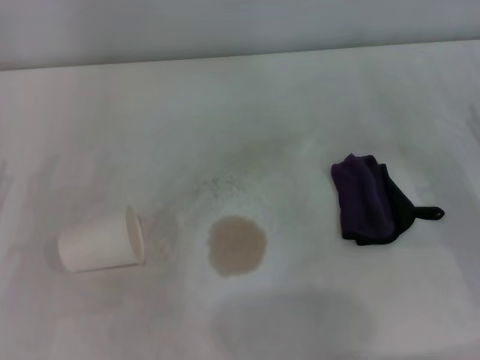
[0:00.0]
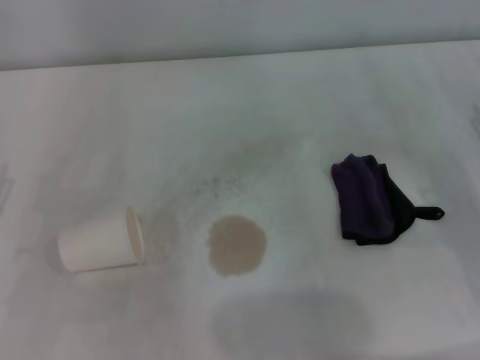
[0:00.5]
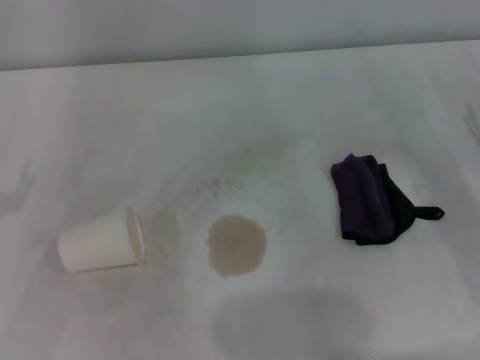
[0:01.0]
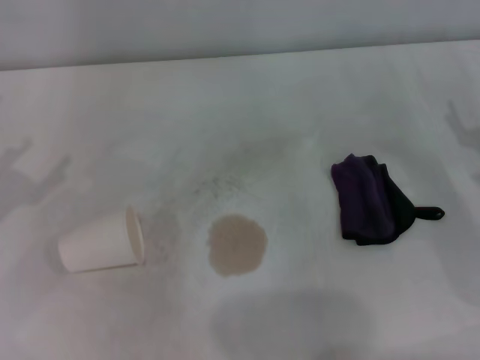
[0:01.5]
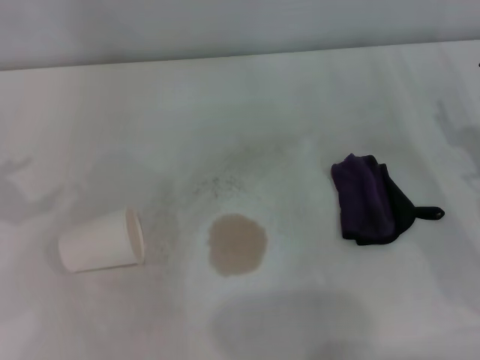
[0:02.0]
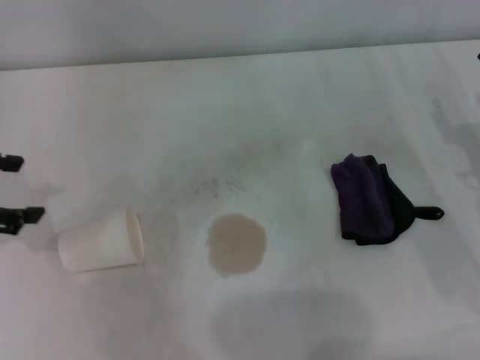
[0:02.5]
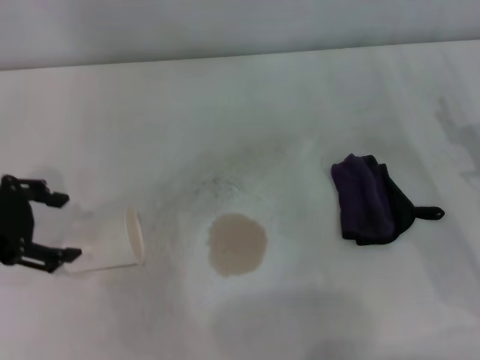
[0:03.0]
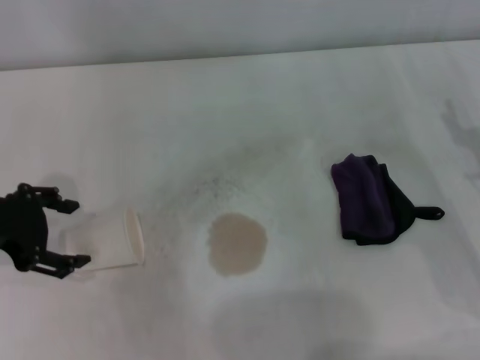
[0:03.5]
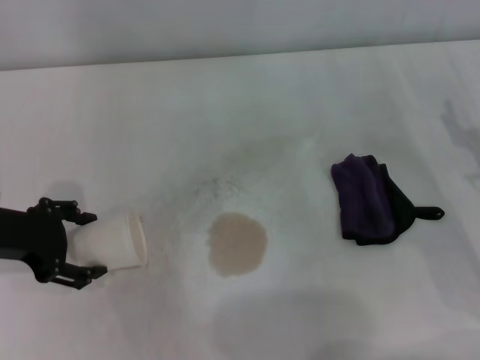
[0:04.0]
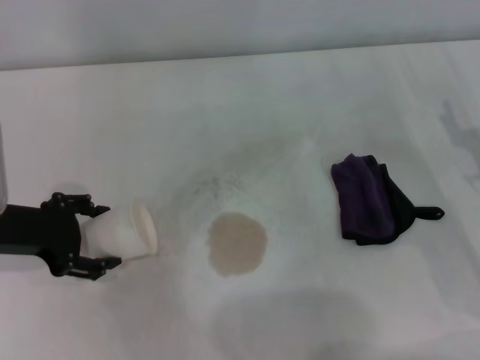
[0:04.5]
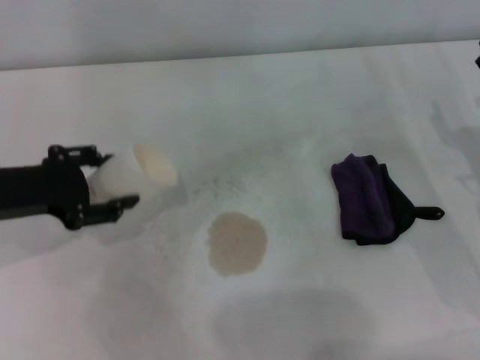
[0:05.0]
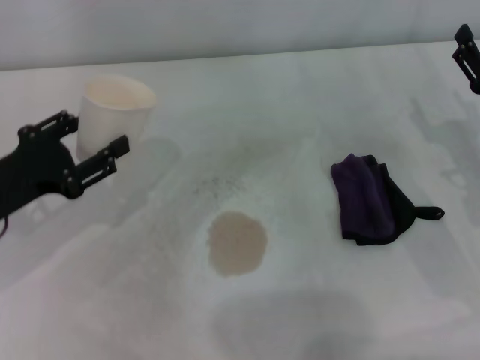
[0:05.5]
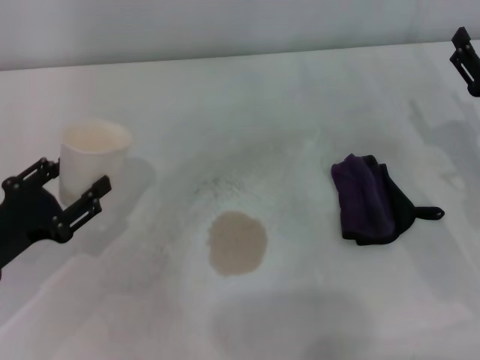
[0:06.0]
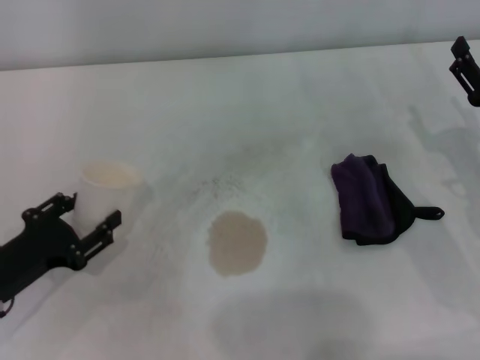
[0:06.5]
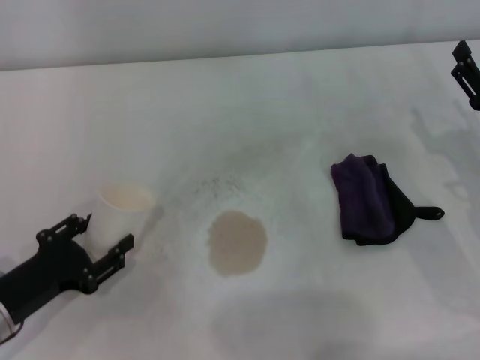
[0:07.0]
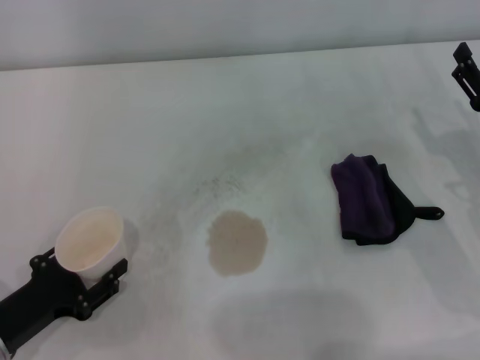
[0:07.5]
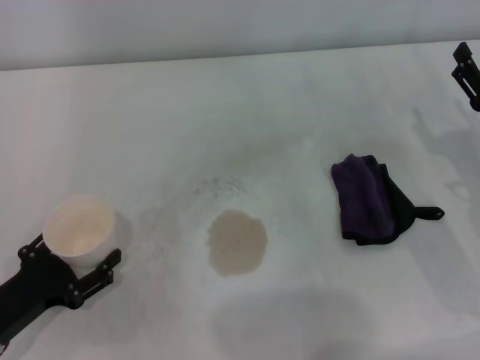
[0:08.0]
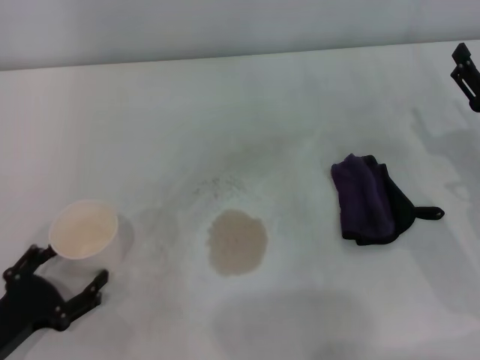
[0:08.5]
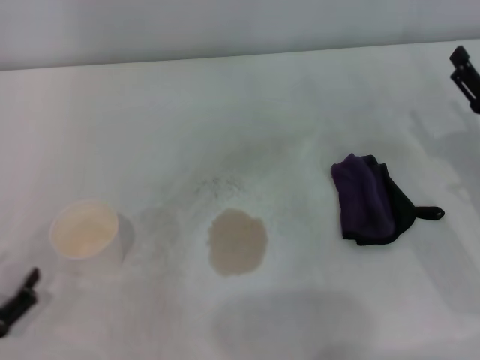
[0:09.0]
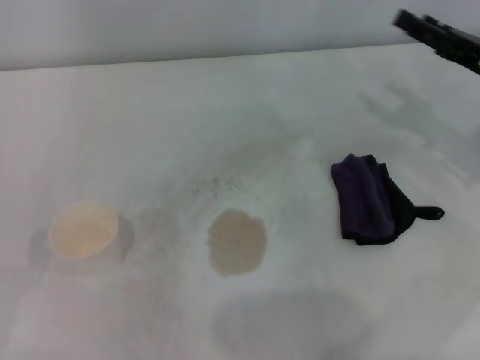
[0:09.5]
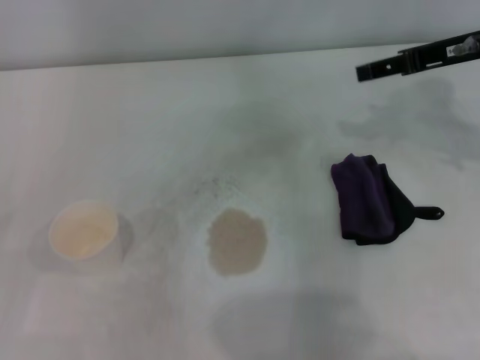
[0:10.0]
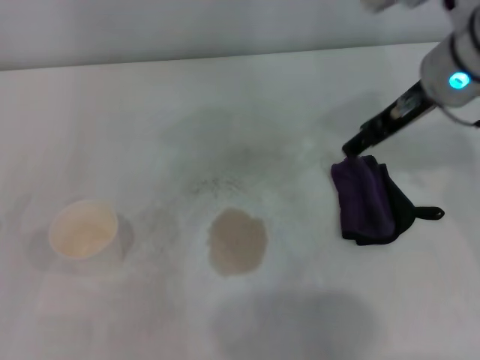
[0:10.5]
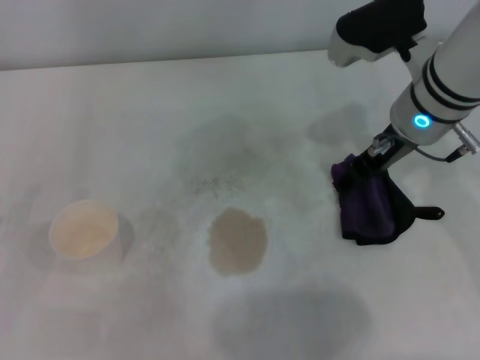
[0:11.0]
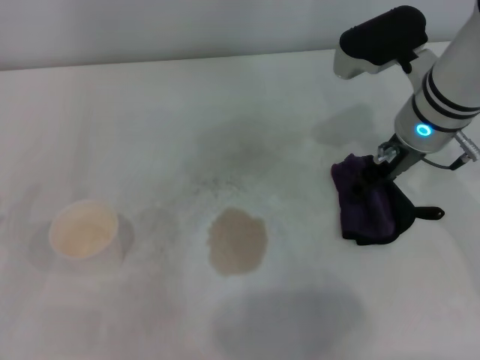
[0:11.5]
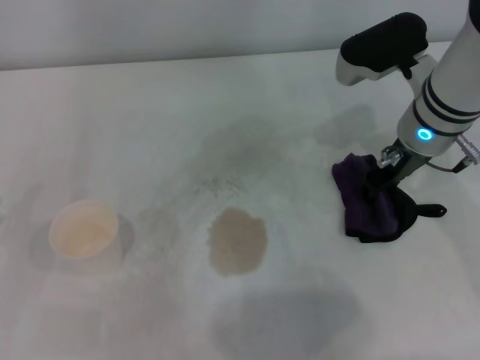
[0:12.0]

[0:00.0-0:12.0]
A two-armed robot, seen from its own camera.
Step, 0:00.0 to 0:04.0: Grasp the paper cup with the left gripper.
Step, 0:04.5 to 0:08.0: Stand the paper cup upright with the left gripper.
0:02.0 to 0:04.0: The left gripper moves to the right and downward, about 15 cm.
0:04.0 to 0:06.0: The left gripper heads downward and backward, covering approximately 10 cm, and closes.
0:06.0 to 0:08.0: The left gripper shifts by approximately 5 cm.
0:08.0 to 0:10.0: The right gripper travels upward and forward by approximately 20 cm; the left gripper shifts some 5 cm to the left, and opens.
0:10.0 to 0:12.0: The right gripper moves to the left and downward, roughly 10 cm.

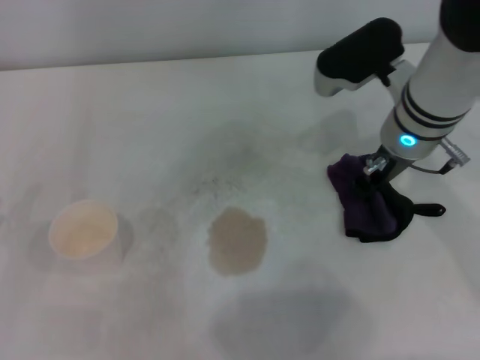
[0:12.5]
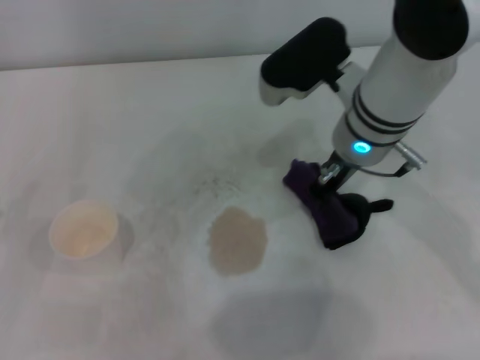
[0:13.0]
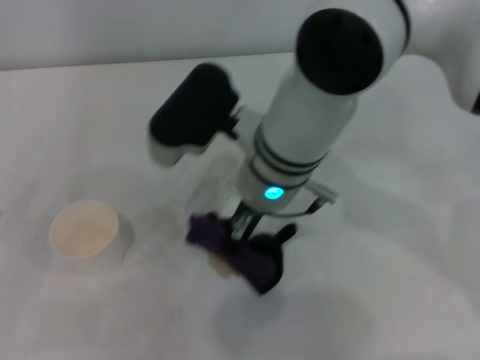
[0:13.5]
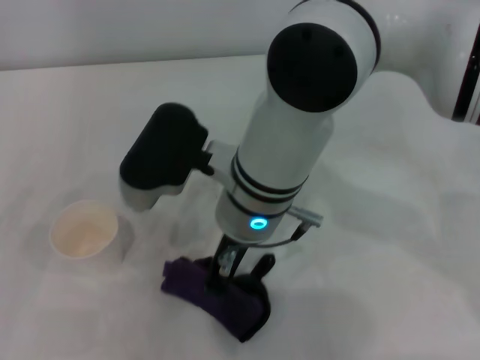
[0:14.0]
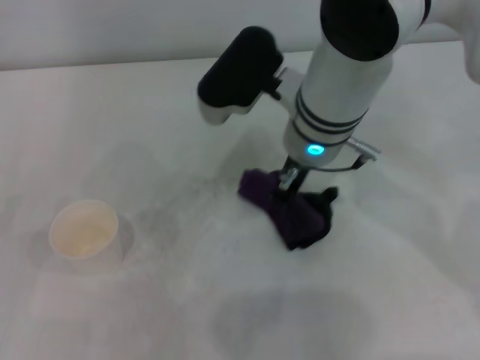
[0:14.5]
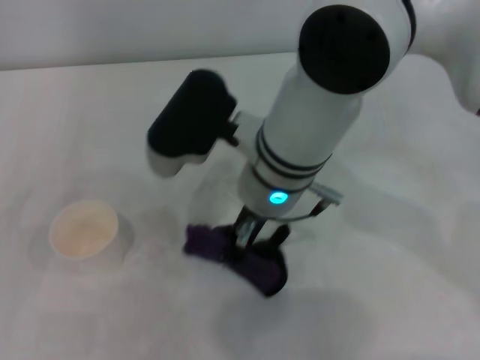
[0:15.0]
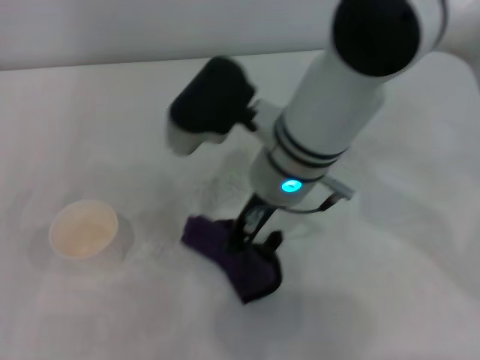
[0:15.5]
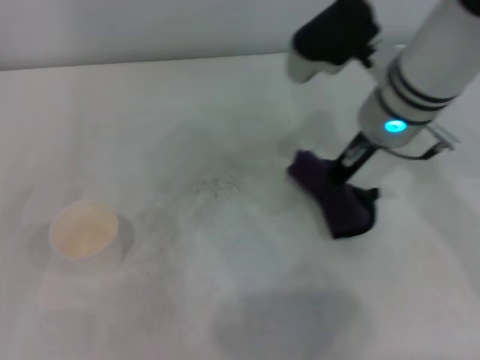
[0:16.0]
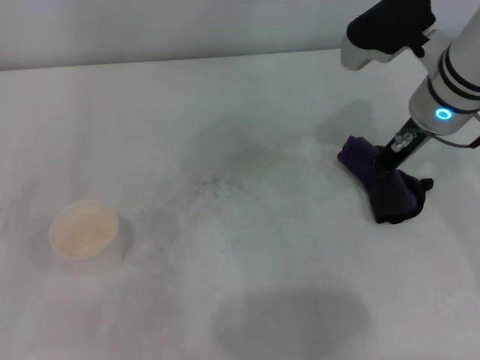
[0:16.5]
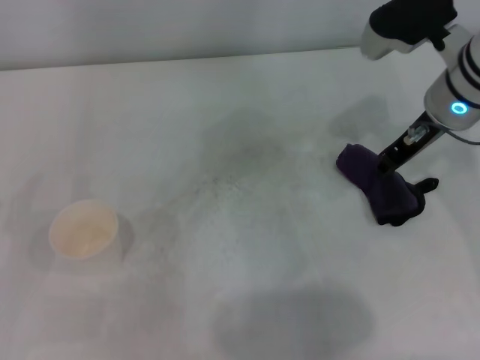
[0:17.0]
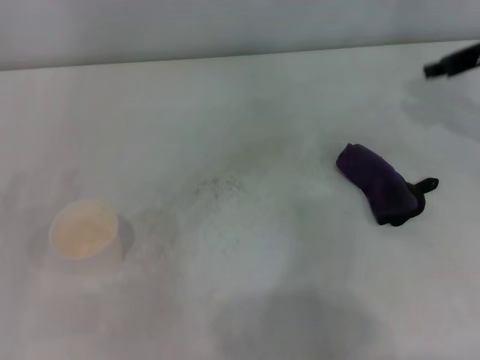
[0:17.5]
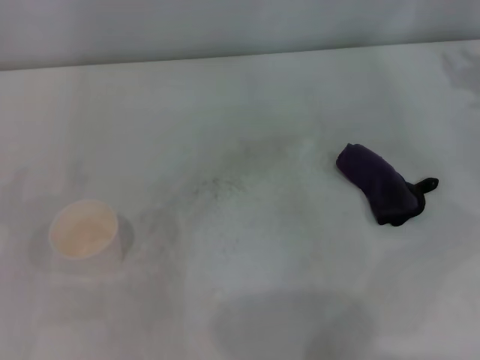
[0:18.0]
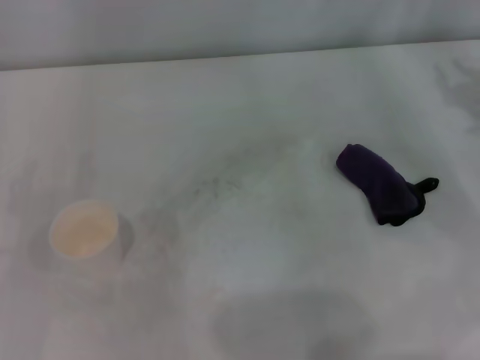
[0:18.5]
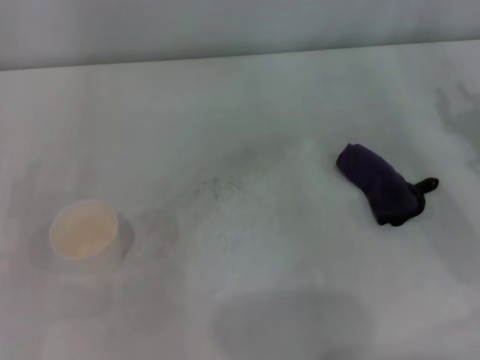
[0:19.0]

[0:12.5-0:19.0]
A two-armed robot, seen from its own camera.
Step, 0:12.5 to 0:16.0: Wipe the stains off the table with the right gripper.
0:12.5 to 0:14.5: The right gripper heads to the left, covering approximately 10 cm.
0:14.5 to 0:17.0: The right gripper moves to the right, roughly 15 cm.
0:17.0 to 0:19.0: The right gripper is displaced to the right, backward and downward by approximately 20 cm.
